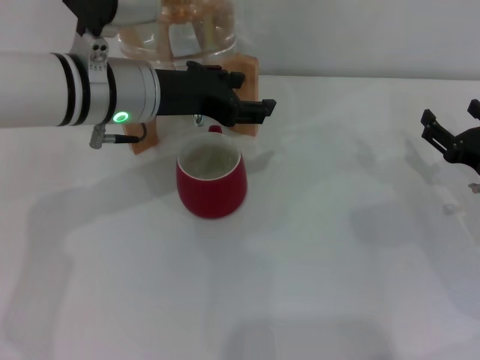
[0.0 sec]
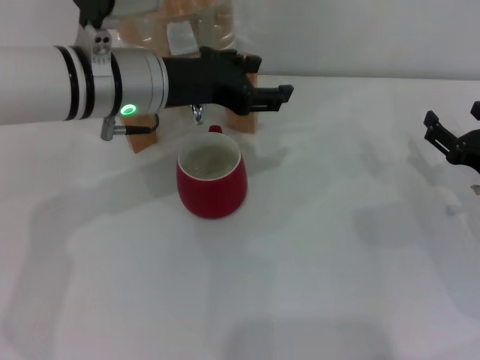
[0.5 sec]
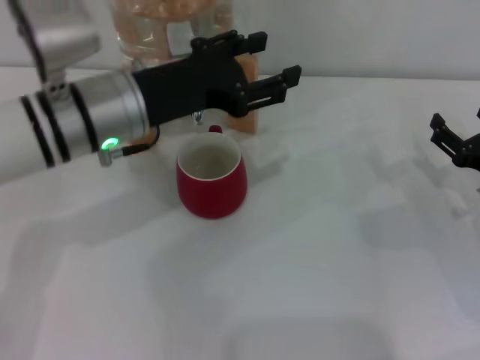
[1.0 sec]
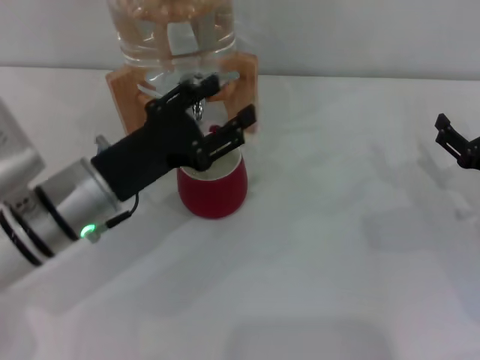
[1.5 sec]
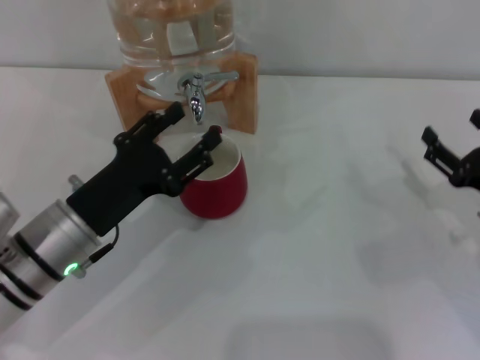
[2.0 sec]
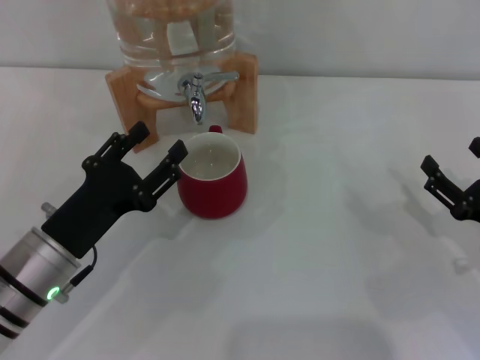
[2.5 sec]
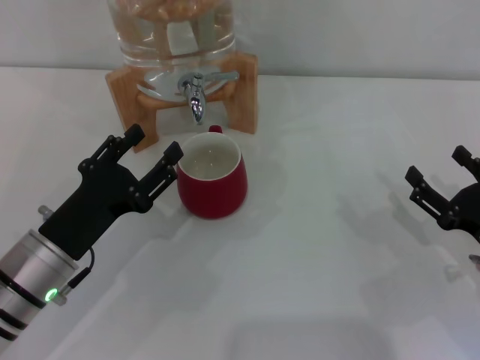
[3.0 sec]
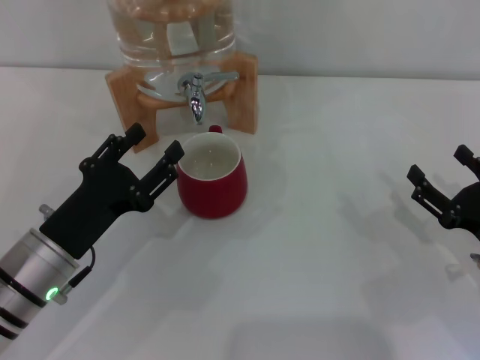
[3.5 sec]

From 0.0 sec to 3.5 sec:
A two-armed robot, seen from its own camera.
Task of the whole recording: the right gripper pick up the red cup and place it horizontally under the faucet, the left gripper turn on the faucet to fill the cup, and then turn off the faucet.
From 0.0 sec to 2.0 sec: The left gripper heads downward, backward and to the left, covering some 15 cm.
From 2.0 sec to 3.5 sec: The grippers make only small movements.
